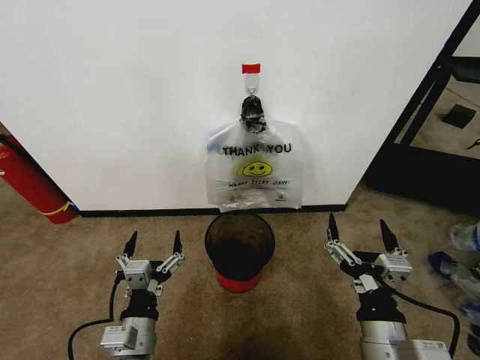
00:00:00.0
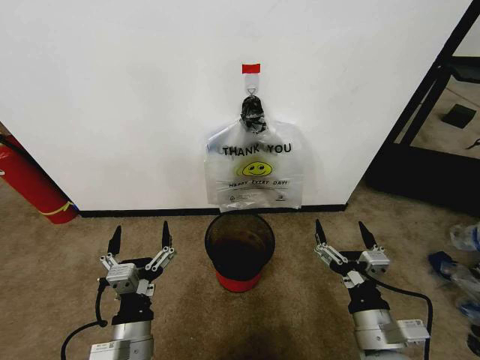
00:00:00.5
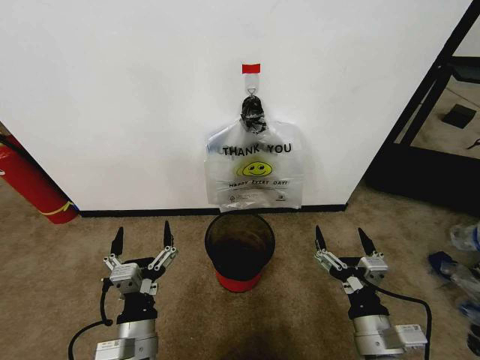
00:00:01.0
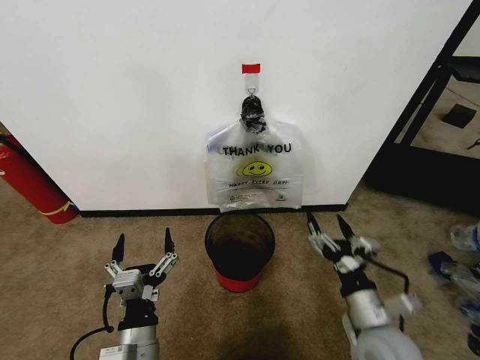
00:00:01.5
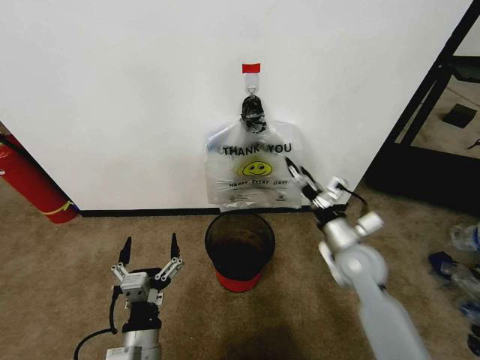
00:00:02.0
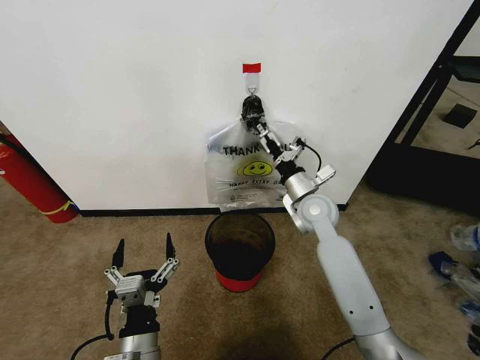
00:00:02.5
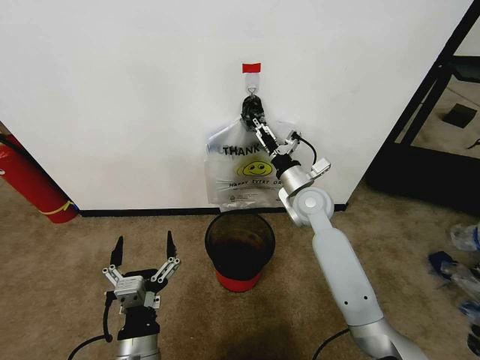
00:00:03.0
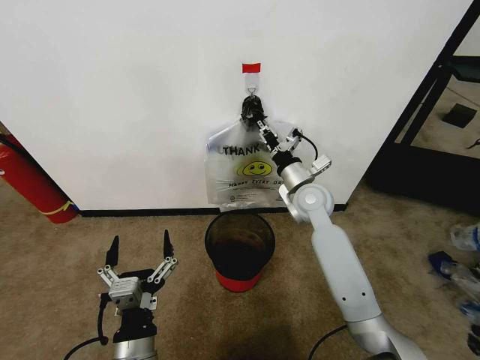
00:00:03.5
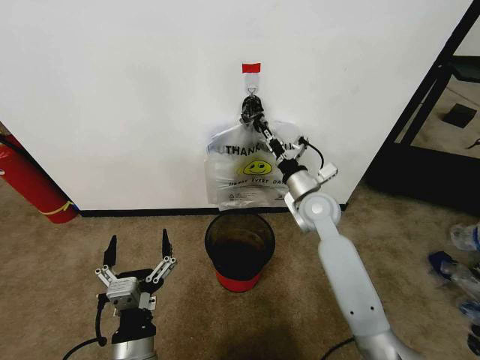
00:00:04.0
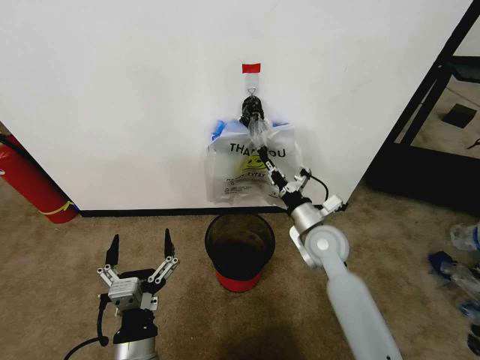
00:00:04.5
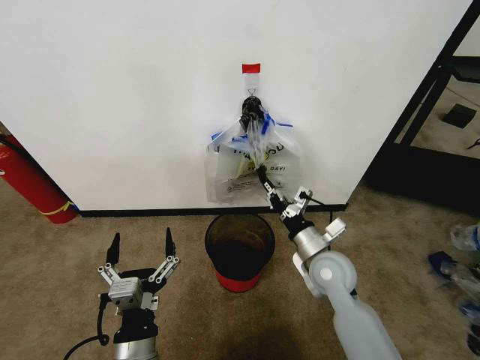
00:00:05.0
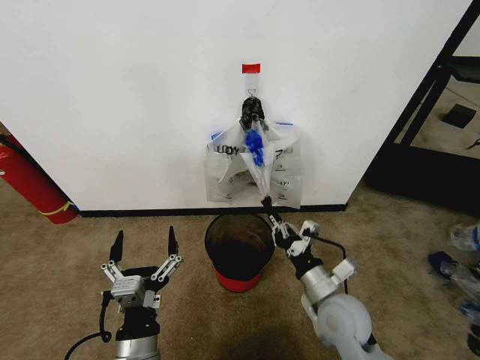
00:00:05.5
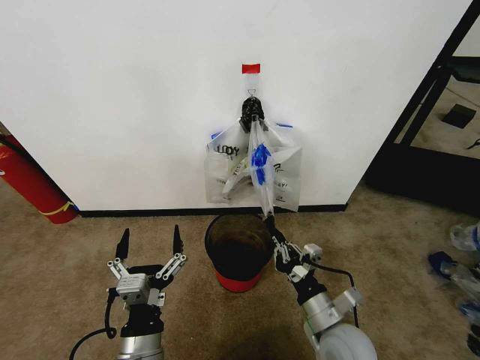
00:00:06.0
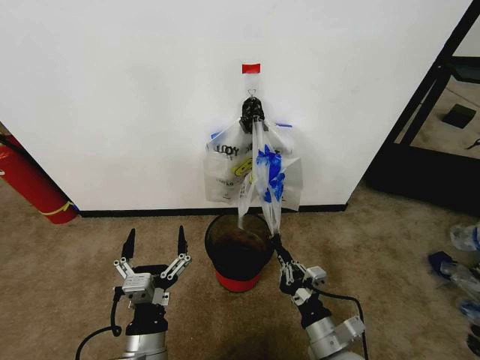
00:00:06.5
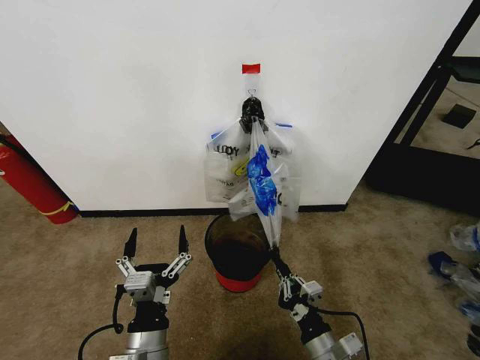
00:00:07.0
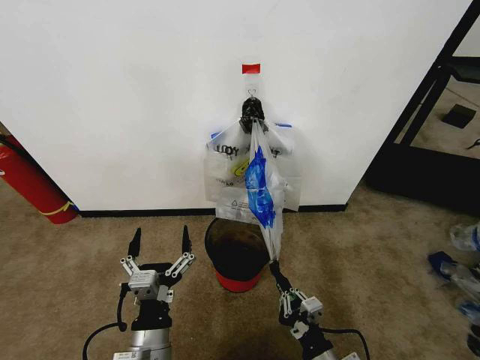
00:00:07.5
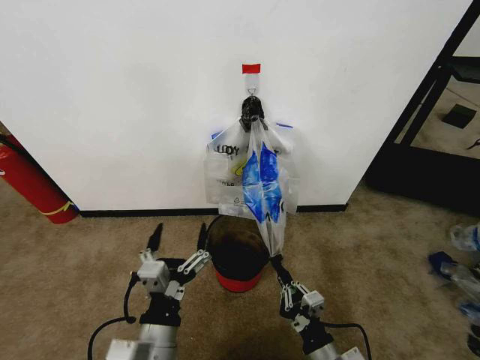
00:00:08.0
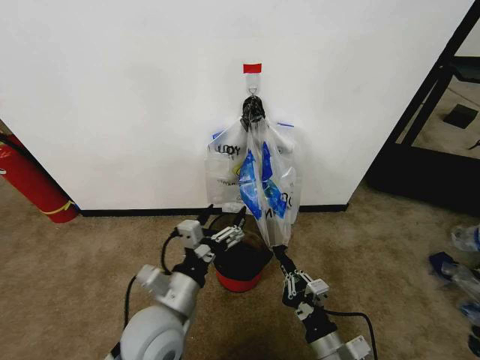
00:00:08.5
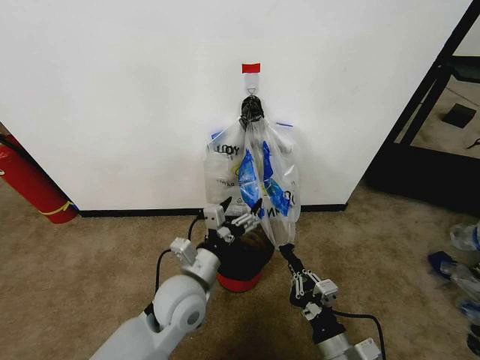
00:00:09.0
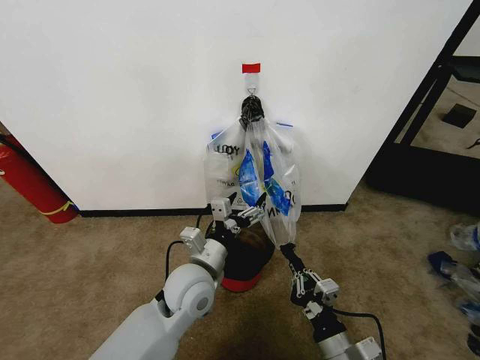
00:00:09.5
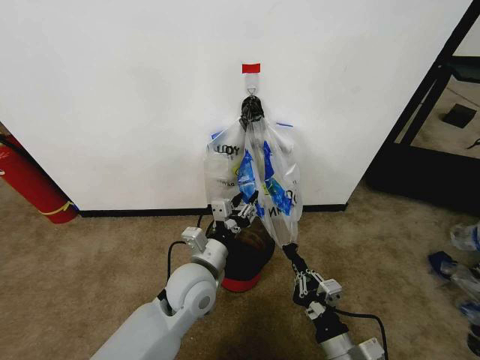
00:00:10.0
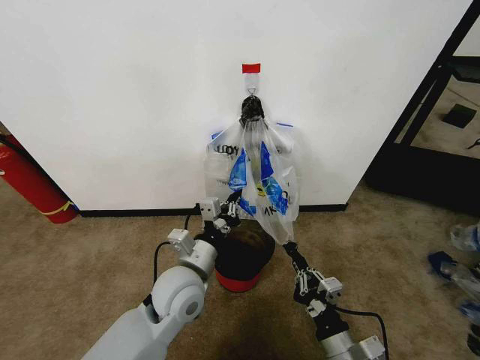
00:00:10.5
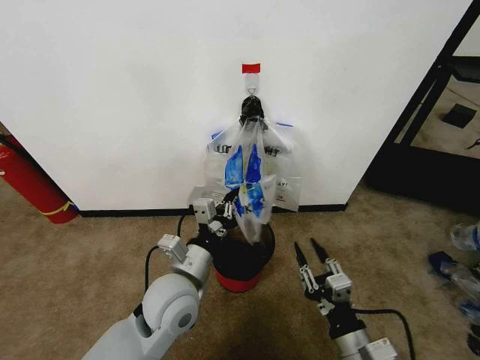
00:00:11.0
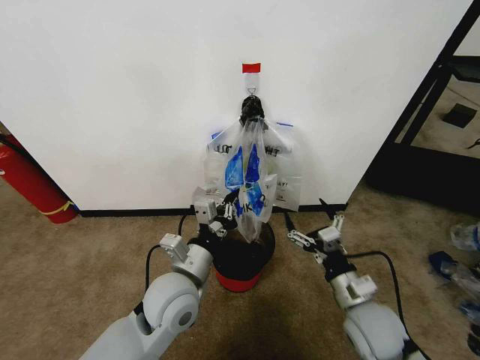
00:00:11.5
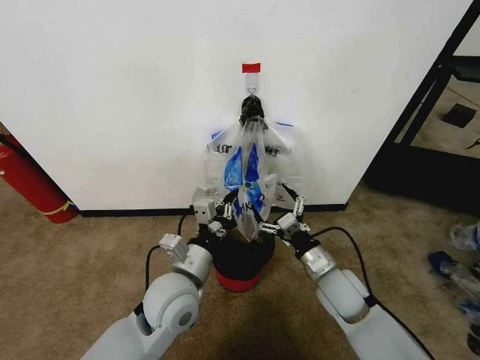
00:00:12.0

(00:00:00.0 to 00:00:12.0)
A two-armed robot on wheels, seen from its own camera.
Task of the whole recording: Pick up the garbage bag from the wall and place it over the trash bin.
00:00:02.0 - 00:00:04.0: The right gripper is displaced forward and to the left by roughly 10 cm, and closes.
00:00:04.0 - 00:00:06.0: The right gripper is displaced backward and downward by roughly 30 cm.
00:00:06.0 - 00:00:08.0: The right gripper shifts roughly 10 cm backward and downward.
00:00:08.0 - 00:00:10.0: The left gripper shifts about 15 cm forward, and closes up.
00:00:10.0 - 00:00:12.0: The left gripper closes up, while the right gripper shifts approximately 15 cm forward, and opens its fingers.

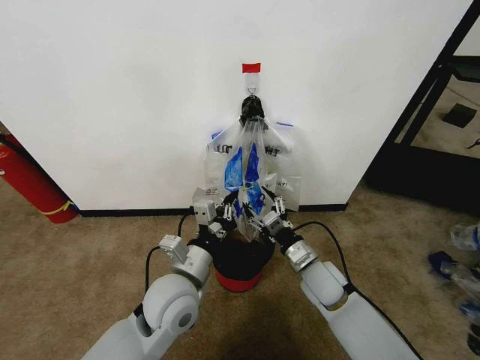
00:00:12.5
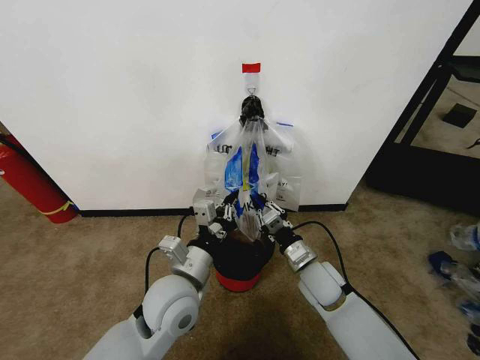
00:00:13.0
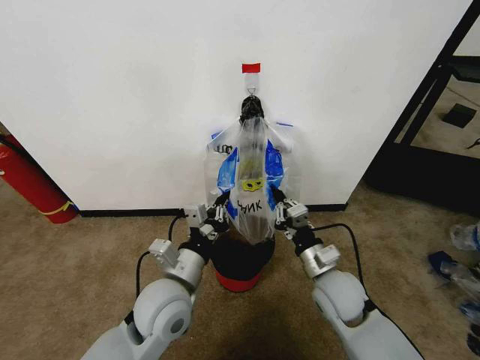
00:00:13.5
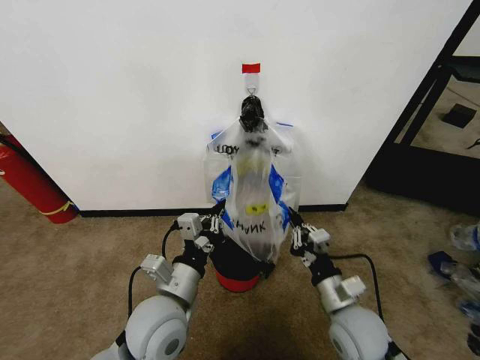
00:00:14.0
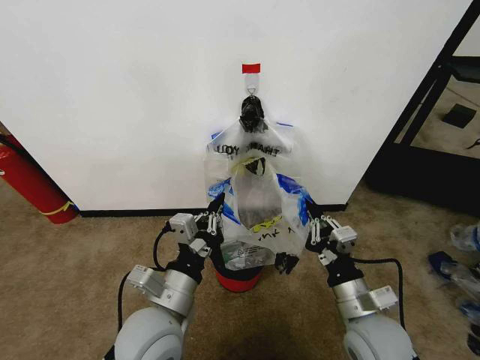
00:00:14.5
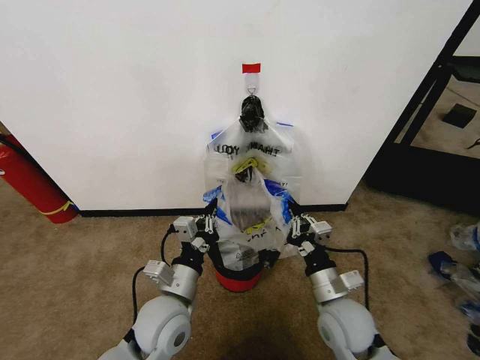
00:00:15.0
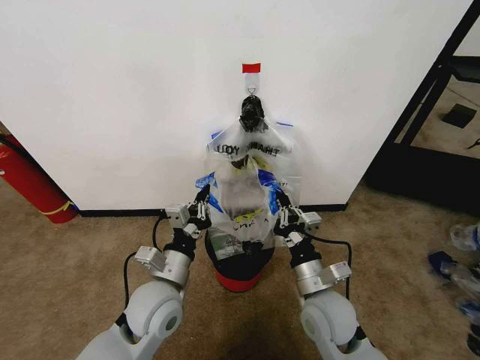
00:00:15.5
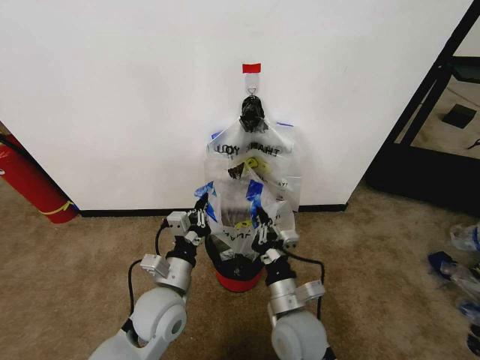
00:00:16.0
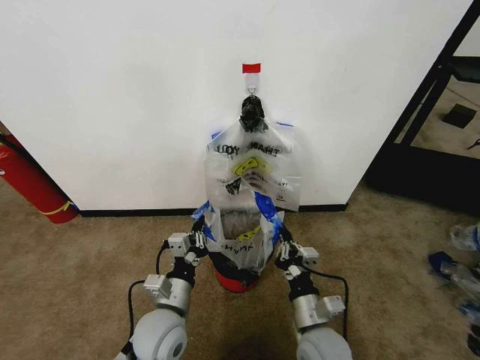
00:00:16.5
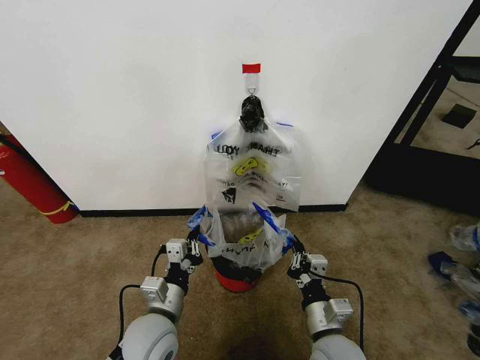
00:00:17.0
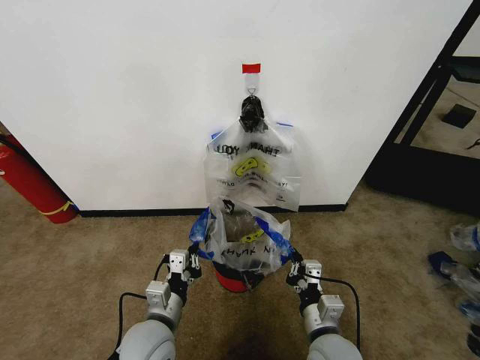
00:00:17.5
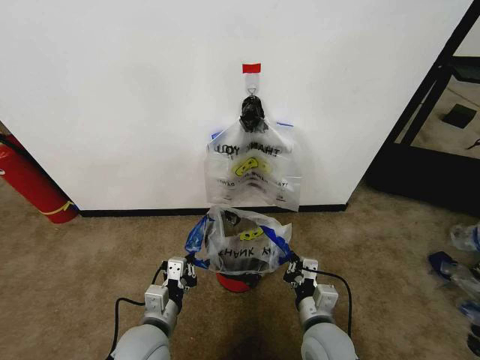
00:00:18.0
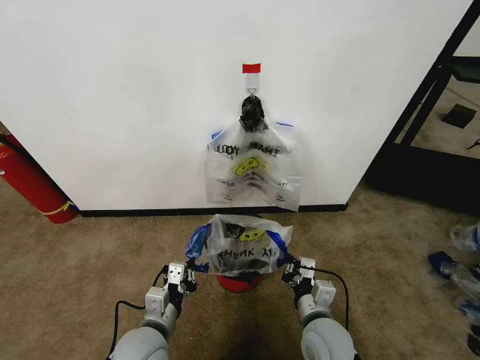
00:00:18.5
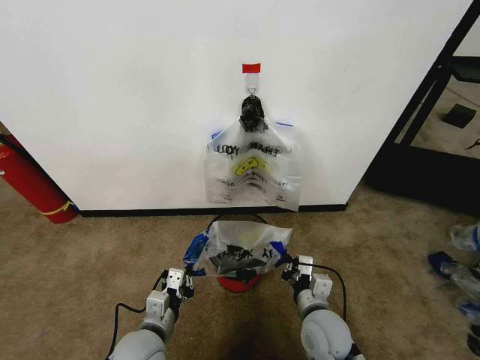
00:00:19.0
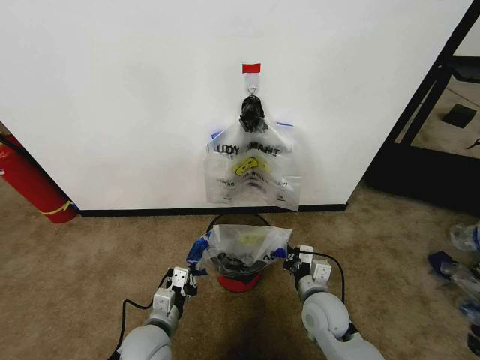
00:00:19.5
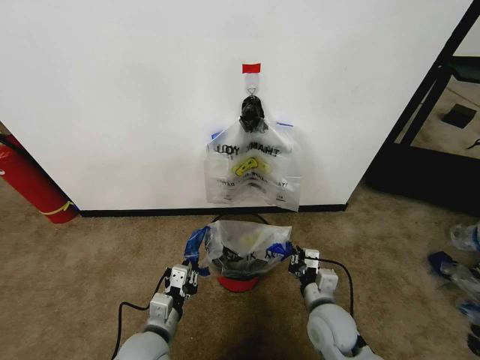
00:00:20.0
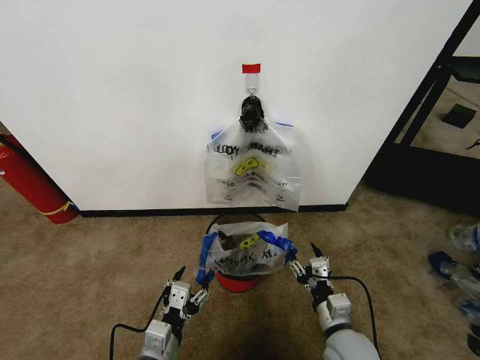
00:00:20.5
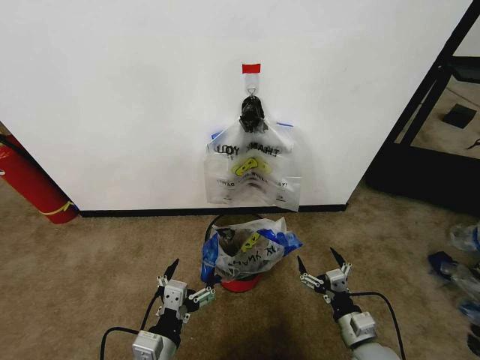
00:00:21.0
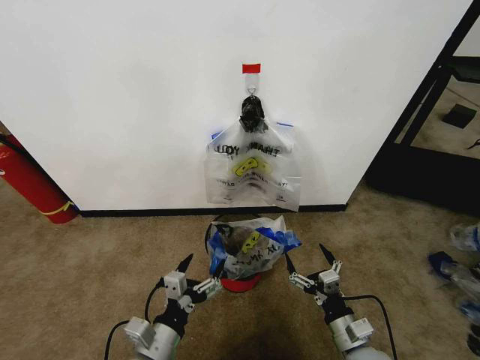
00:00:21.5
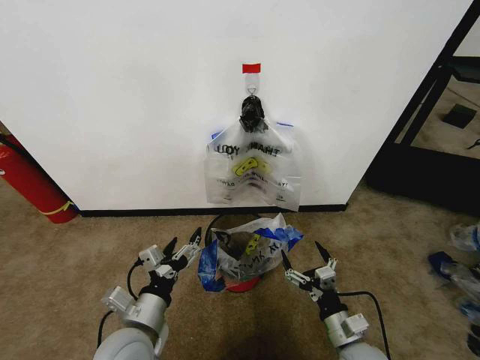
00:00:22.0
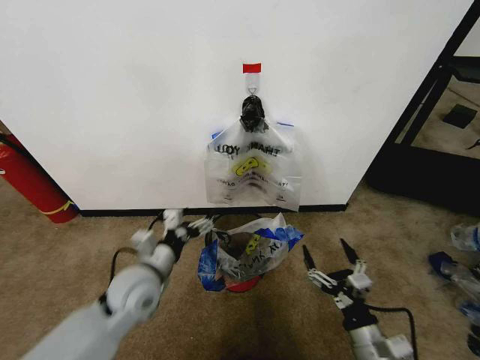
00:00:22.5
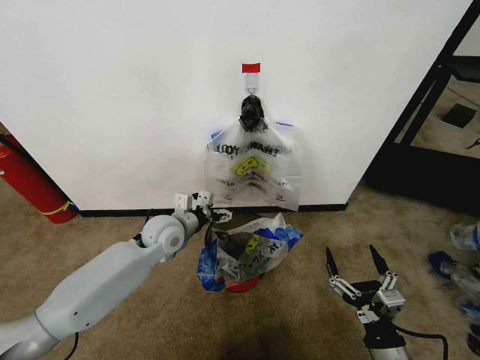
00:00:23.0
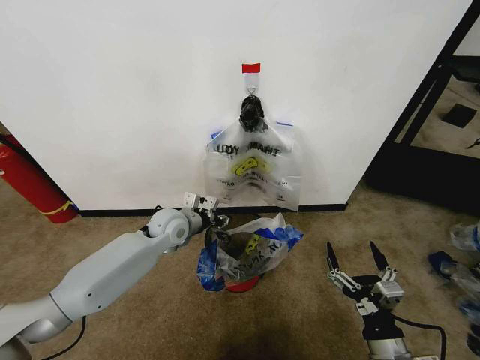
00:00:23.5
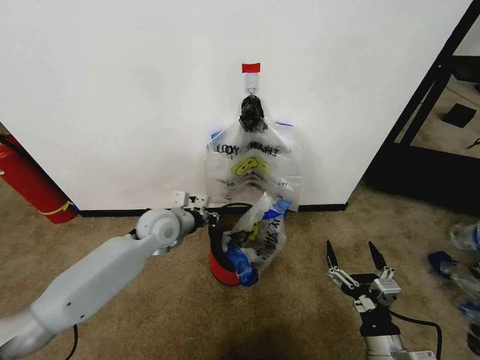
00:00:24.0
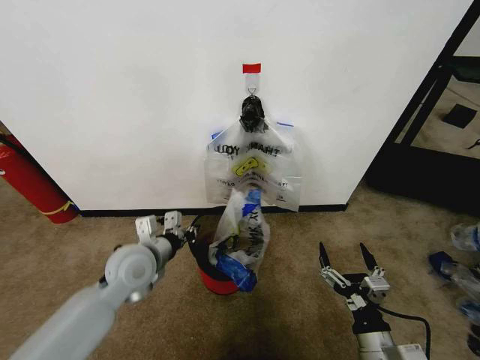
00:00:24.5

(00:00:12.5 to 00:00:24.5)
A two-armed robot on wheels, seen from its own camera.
Task of the whole recording: Pick up the garbage bag from the wall and place it over the trash bin.
00:00:12.5 - 00:00:14.5: The right gripper goes approximately 15 cm backward and upward, and closes its fingers. Meanwhile the left gripper shifts some 5 cm backward.
00:00:14.5 - 00:00:16.5: The left gripper goes roughly 10 cm downward, while the right gripper moves downward and to the left, about 10 cm.
00:00:18.5 - 00:00:20.5: The right gripper shifts roughly 5 cm to the right, reaches roughly 5 cm forward, then returns, and opens its fingers; the left gripper goes roughly 5 cm backward, and opens its fingers.
00:00:20.5 - 00:00:22.5: The right gripper shifts by approximately 5 cm. Meanwhile the left gripper moves forward and upward, about 15 cm.
00:00:22.5 - 00:00:24.5: The left gripper goes forward and returns, approximately 15 cm each way, and closes.

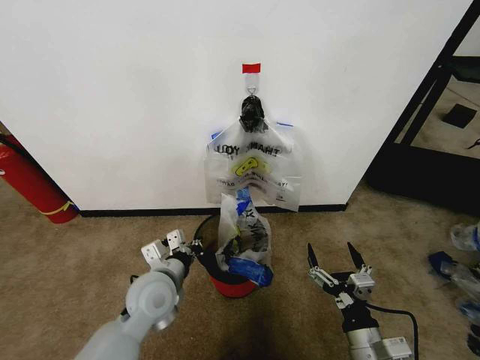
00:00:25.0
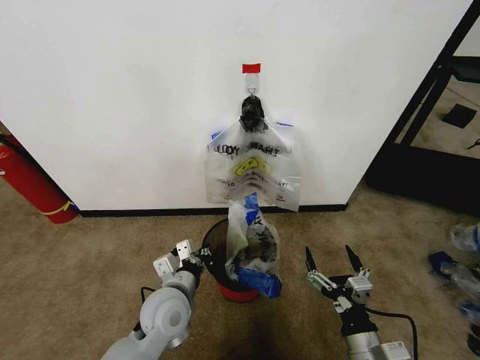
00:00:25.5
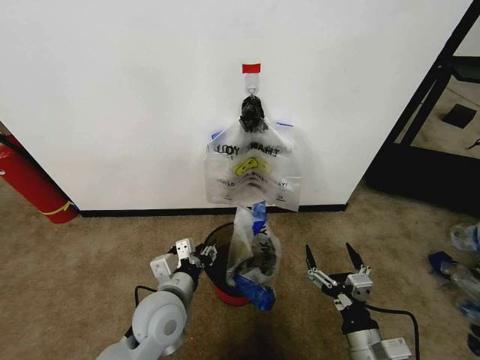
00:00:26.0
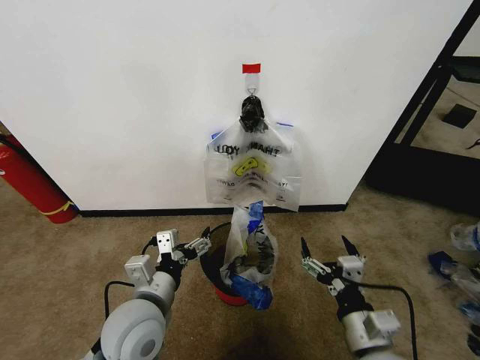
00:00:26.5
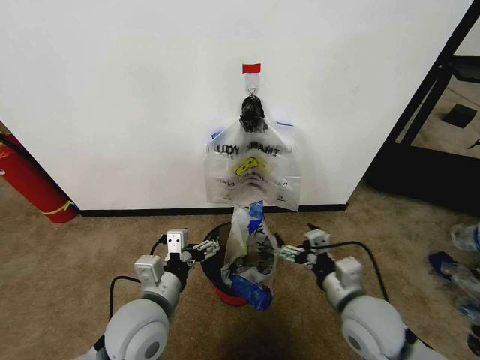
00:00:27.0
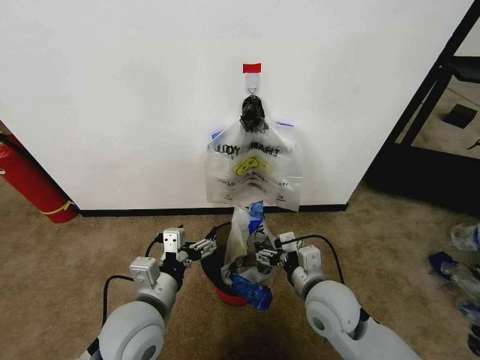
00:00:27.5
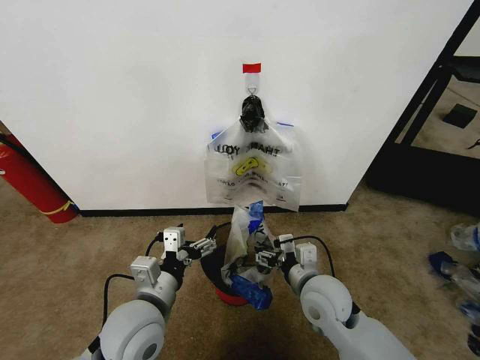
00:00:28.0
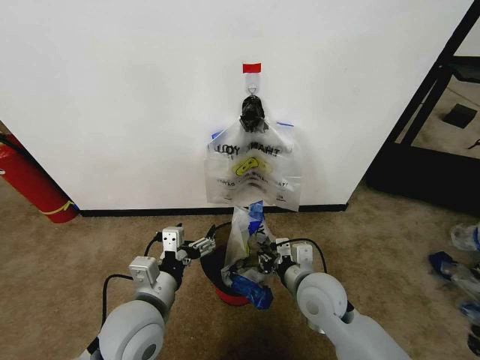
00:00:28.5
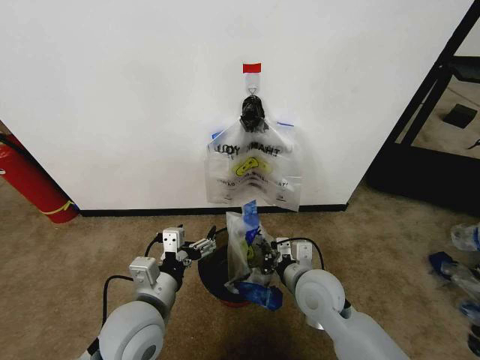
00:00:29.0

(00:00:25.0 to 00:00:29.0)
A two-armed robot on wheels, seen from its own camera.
Task of the whole recording: Pick up the garbage bag from the wall and place it over the trash bin.
00:00:25.0 - 00:00:27.0: The right gripper shifts some 10 cm forward and upward, while the left gripper shifts some 5 cm backward, and opens up.
00:00:27.0 - 00:00:29.0: The right gripper shifts roughly 10 cm to the left and forward, and closes.
